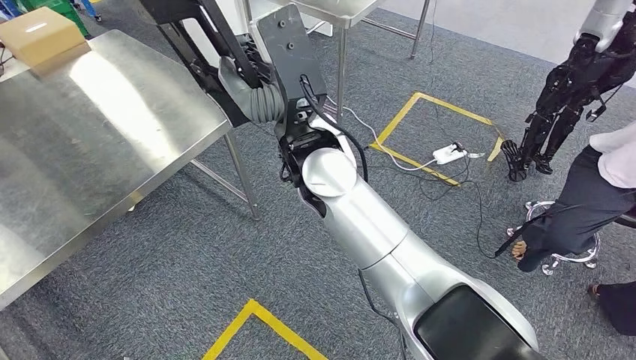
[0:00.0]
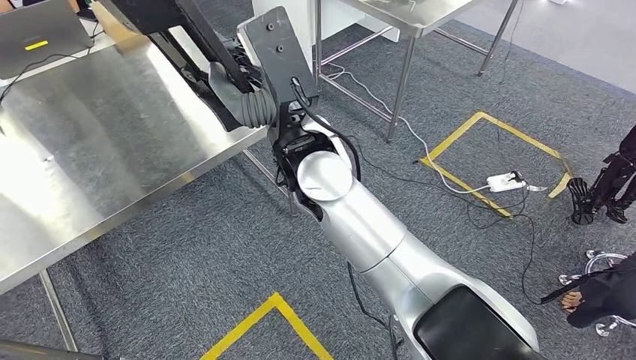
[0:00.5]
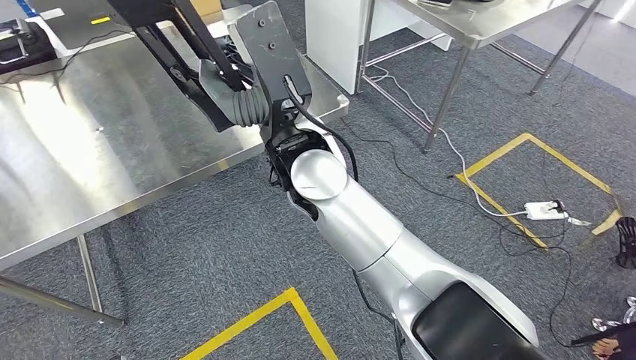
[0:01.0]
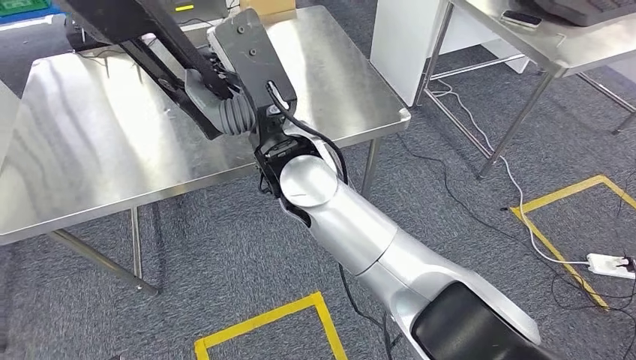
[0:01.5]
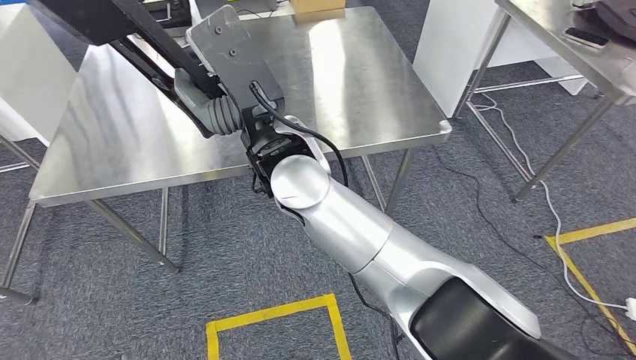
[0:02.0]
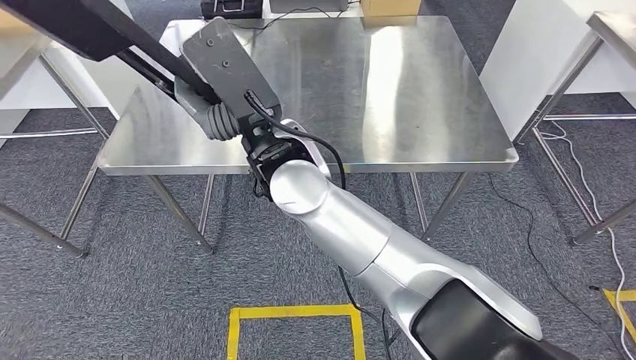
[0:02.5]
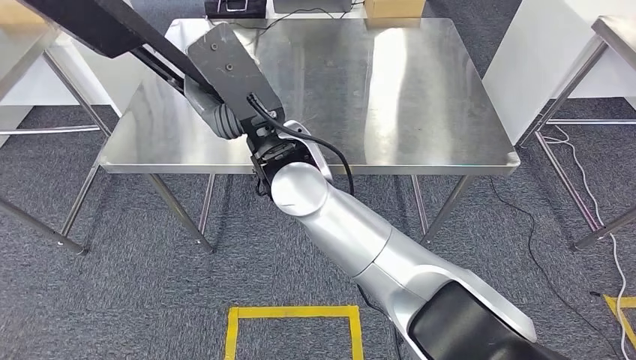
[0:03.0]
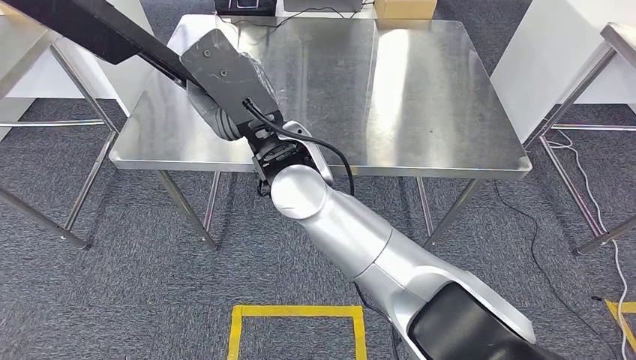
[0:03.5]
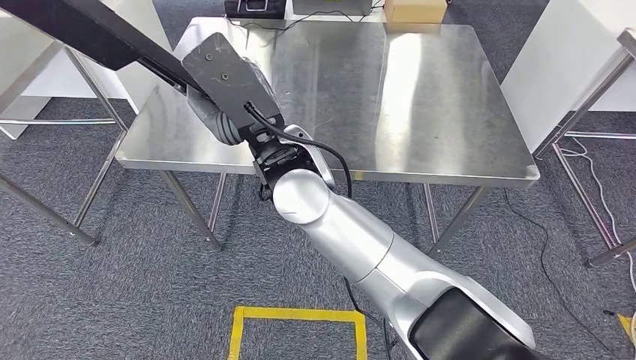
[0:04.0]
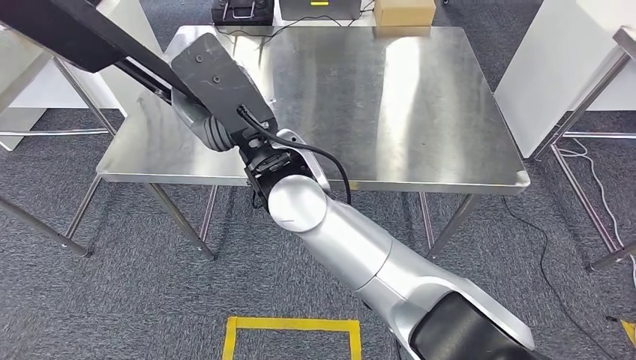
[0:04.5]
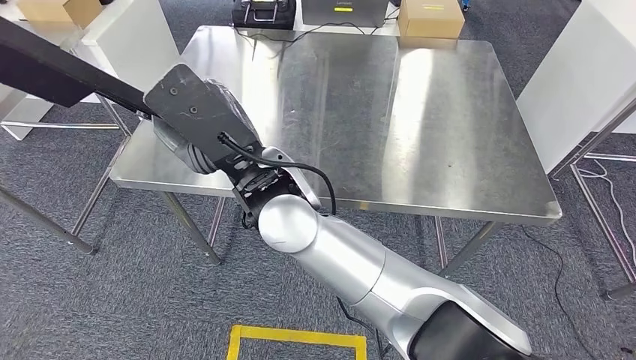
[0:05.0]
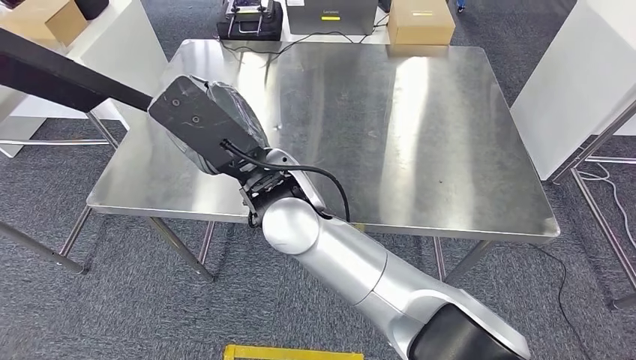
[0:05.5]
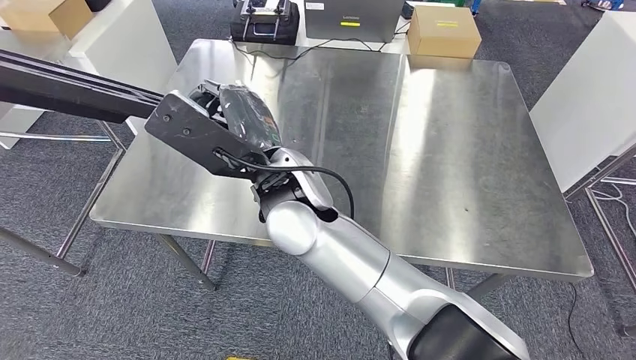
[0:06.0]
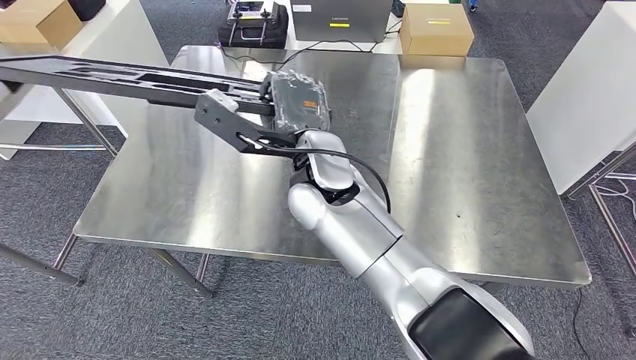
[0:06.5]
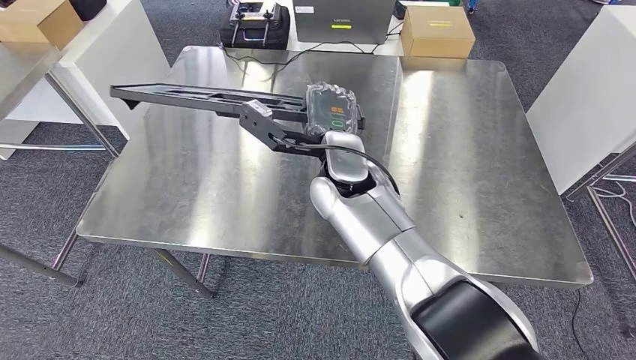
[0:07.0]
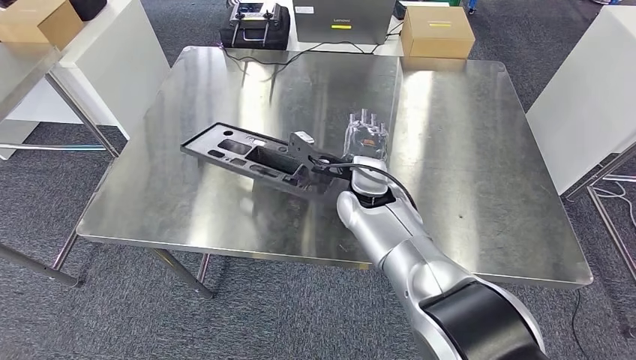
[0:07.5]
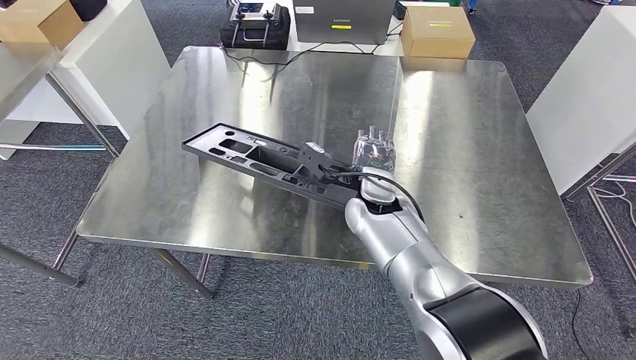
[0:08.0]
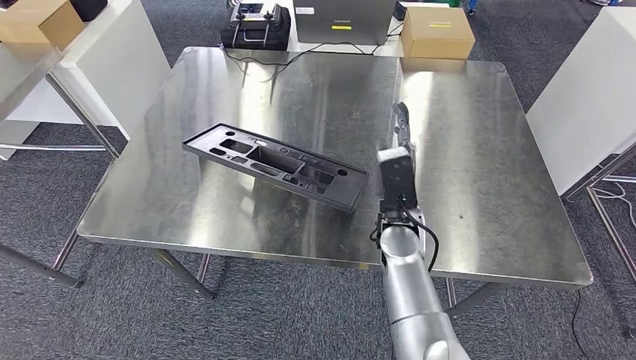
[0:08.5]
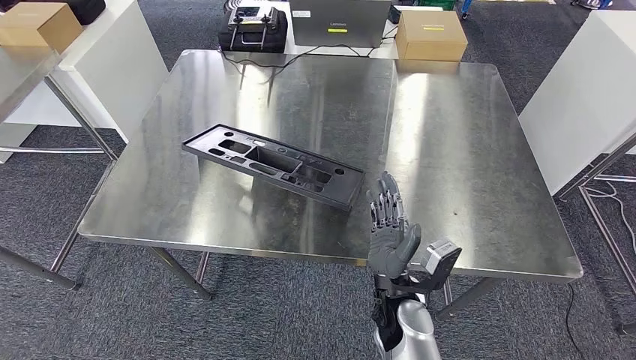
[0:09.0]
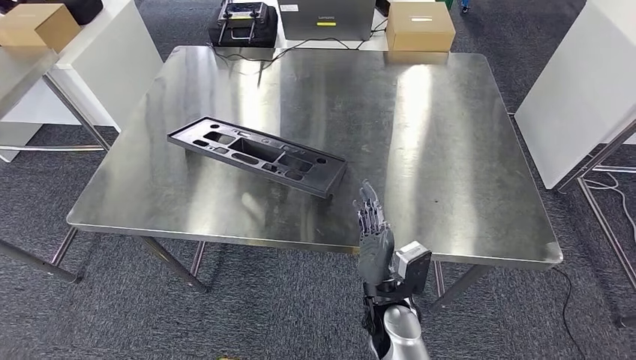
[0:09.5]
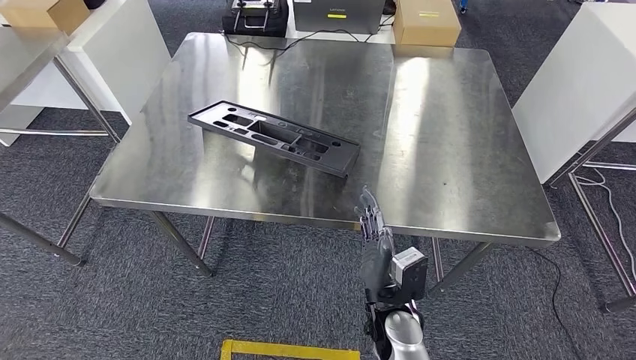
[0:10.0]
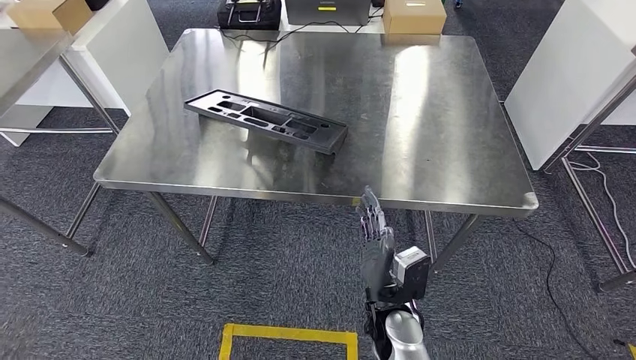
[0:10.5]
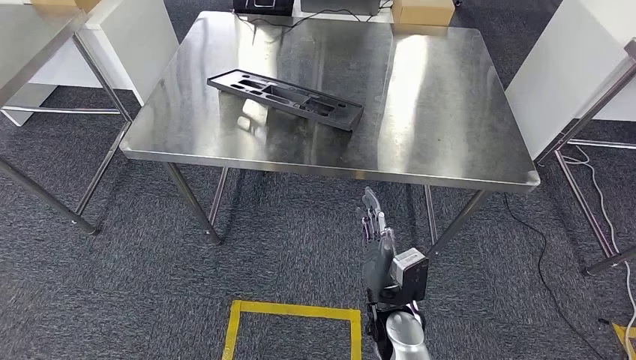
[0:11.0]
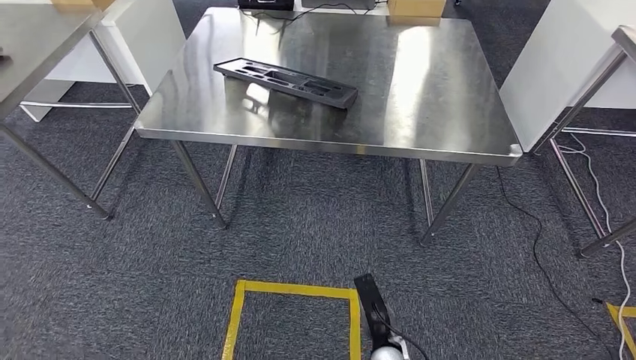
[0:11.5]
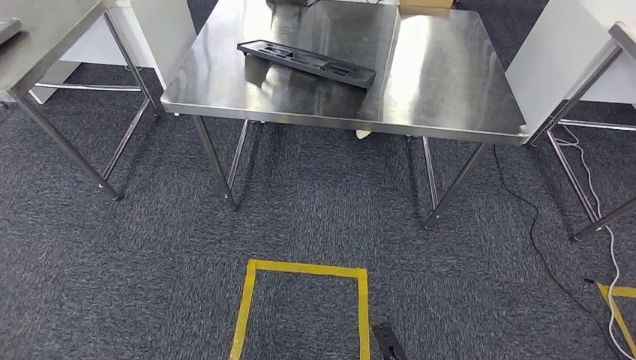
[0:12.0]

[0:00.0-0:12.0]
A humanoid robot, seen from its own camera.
Step, 0:02.0 to 0:08.0: Insert the large material into the corresponding hole on the workbench.

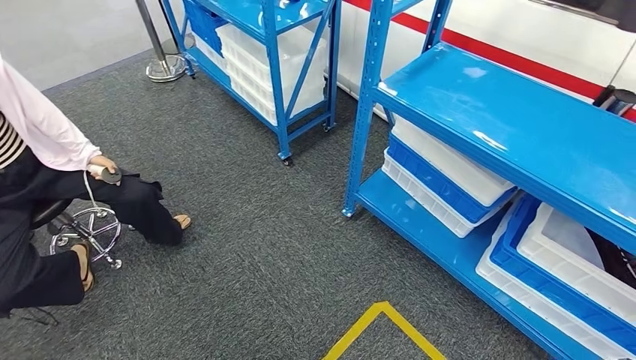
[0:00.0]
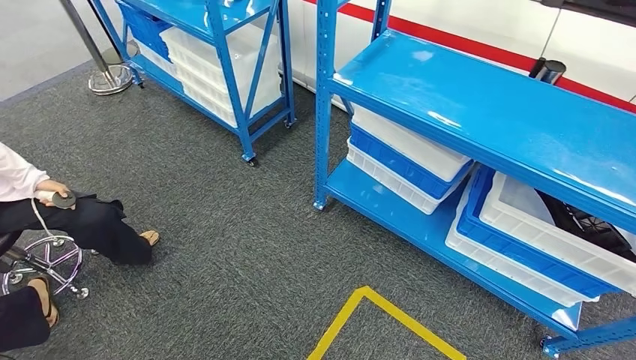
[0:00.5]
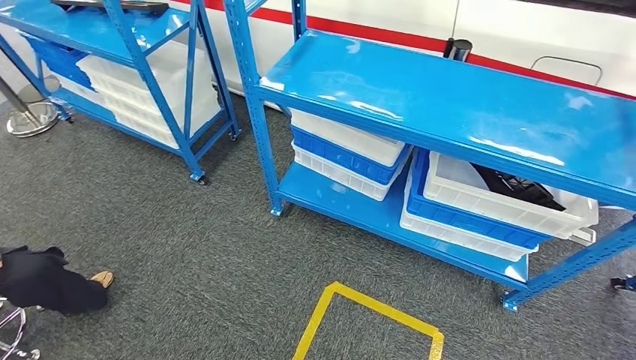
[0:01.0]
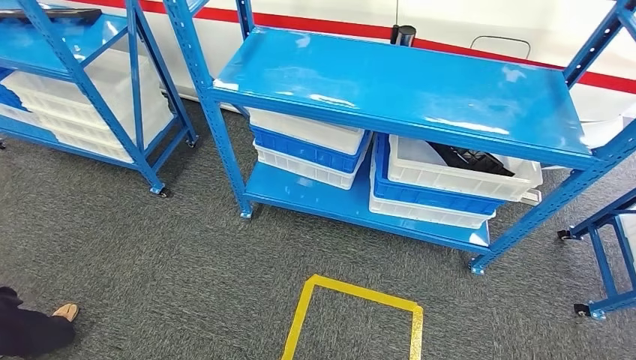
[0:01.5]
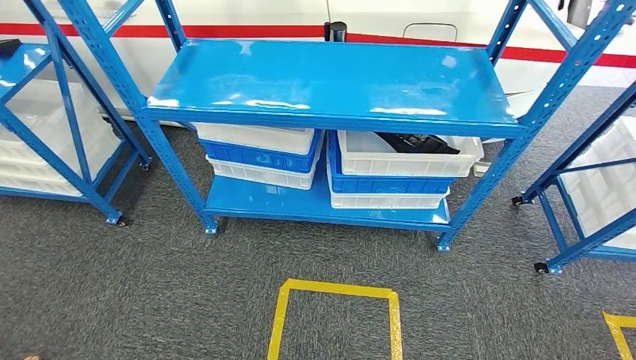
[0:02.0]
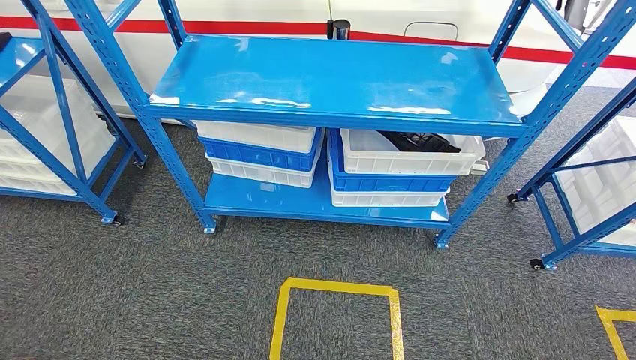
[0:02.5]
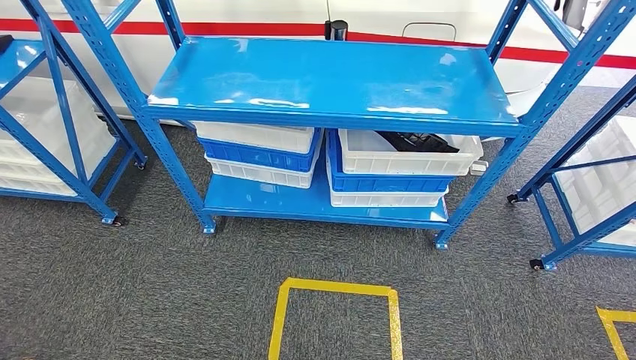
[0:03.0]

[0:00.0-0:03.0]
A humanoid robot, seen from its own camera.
Step, 0:00.0 to 0:03.0: Move to the initial position of the shelf.
